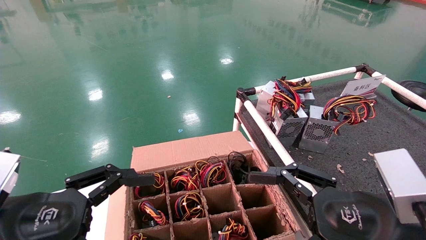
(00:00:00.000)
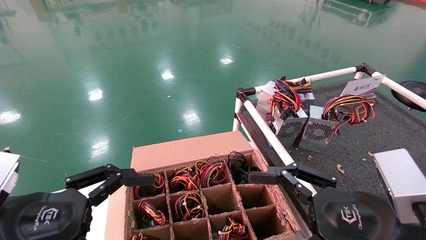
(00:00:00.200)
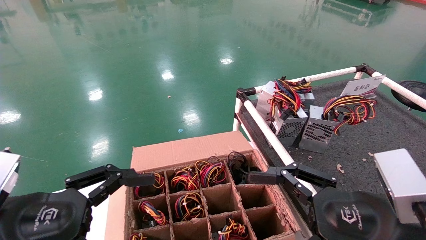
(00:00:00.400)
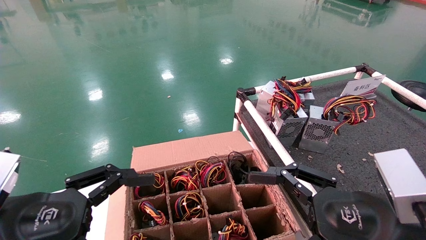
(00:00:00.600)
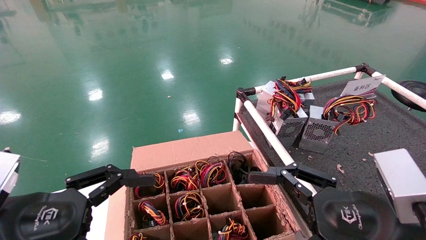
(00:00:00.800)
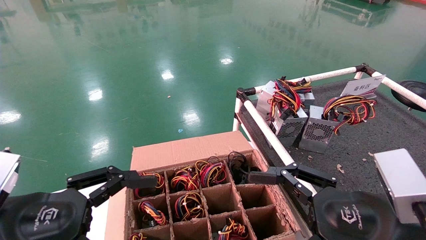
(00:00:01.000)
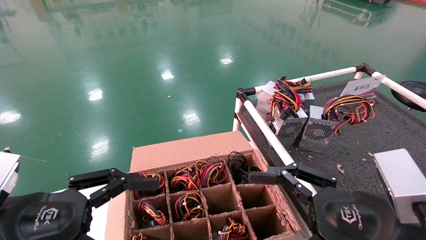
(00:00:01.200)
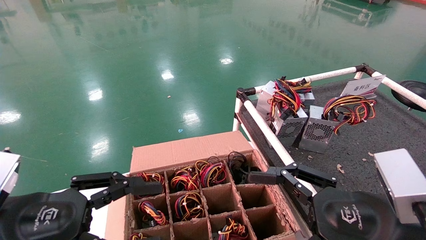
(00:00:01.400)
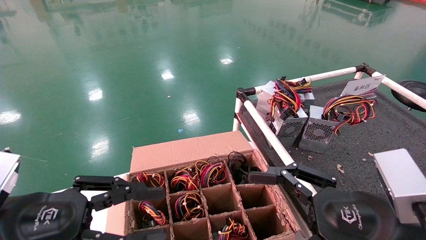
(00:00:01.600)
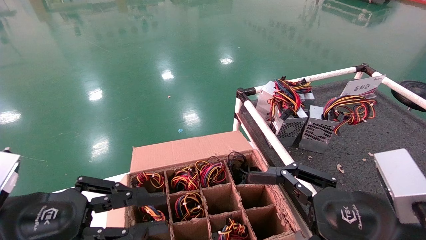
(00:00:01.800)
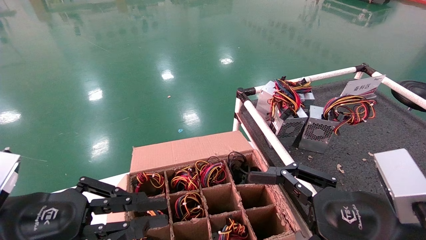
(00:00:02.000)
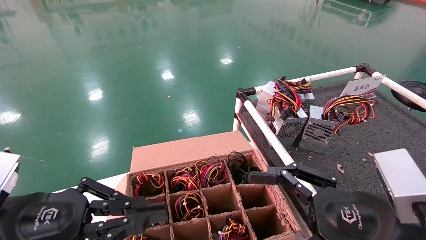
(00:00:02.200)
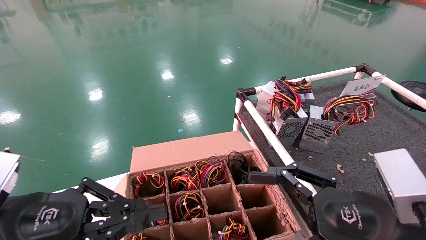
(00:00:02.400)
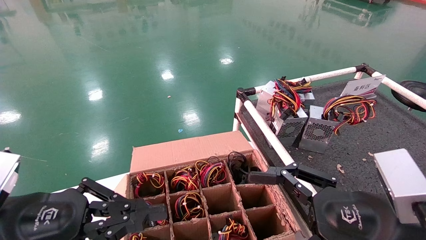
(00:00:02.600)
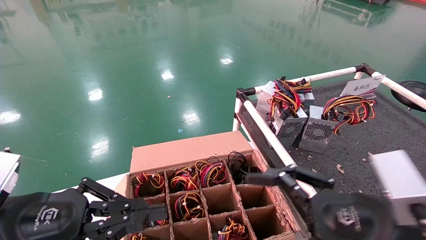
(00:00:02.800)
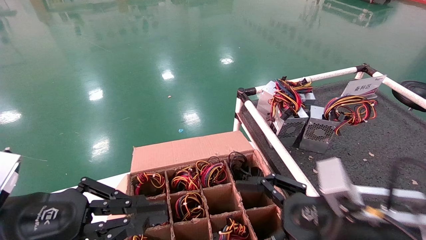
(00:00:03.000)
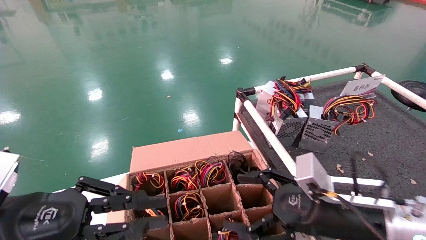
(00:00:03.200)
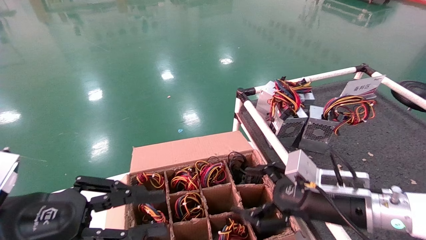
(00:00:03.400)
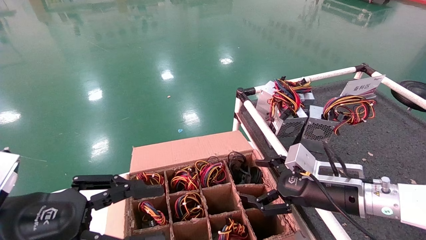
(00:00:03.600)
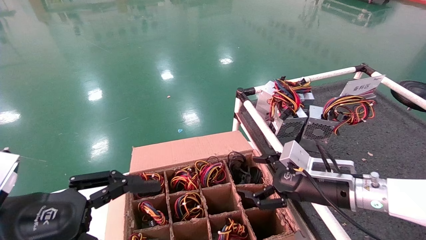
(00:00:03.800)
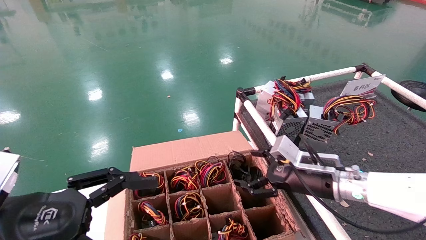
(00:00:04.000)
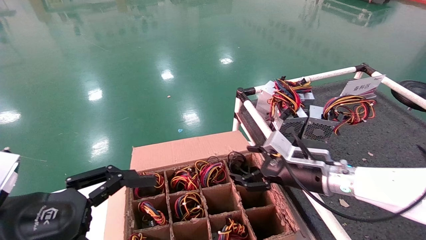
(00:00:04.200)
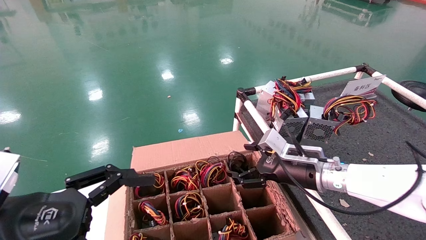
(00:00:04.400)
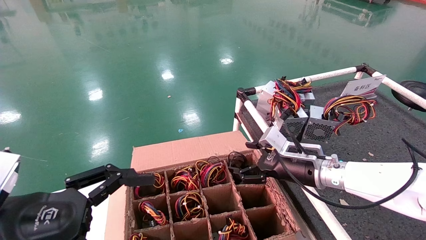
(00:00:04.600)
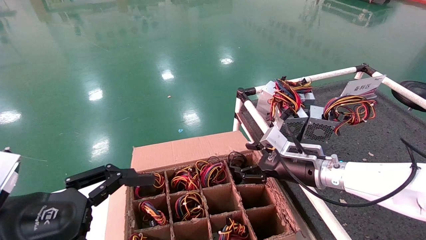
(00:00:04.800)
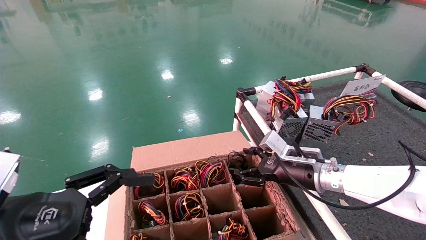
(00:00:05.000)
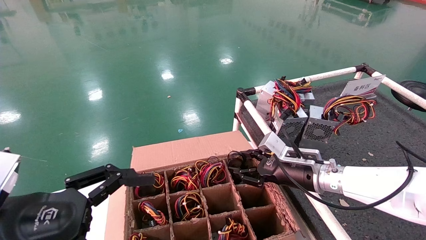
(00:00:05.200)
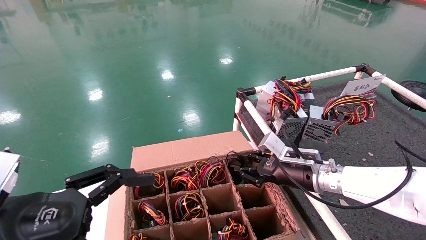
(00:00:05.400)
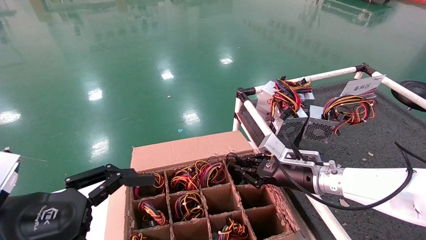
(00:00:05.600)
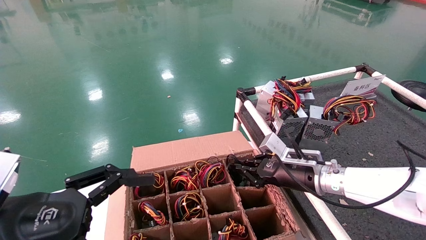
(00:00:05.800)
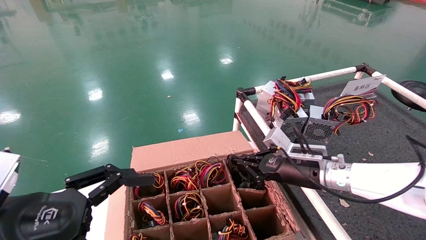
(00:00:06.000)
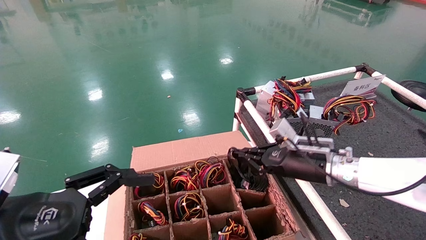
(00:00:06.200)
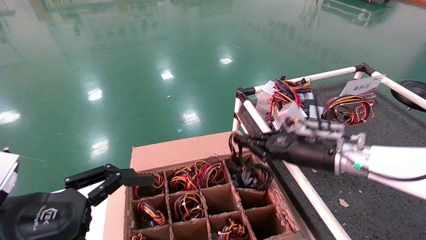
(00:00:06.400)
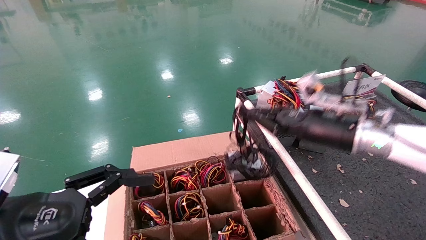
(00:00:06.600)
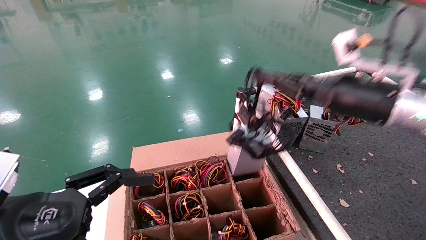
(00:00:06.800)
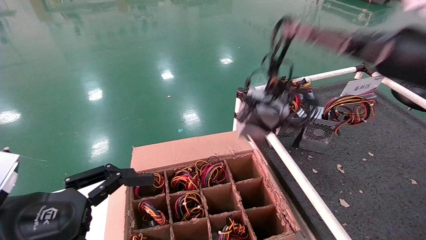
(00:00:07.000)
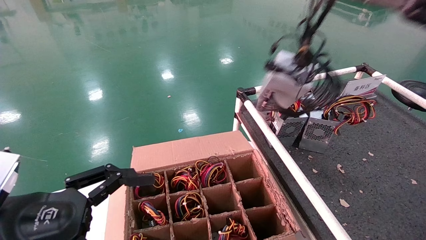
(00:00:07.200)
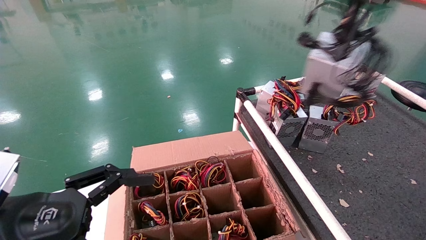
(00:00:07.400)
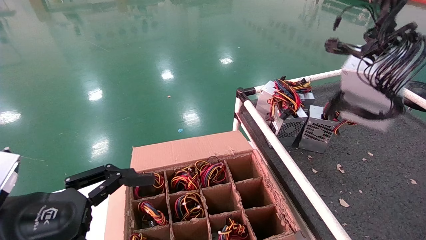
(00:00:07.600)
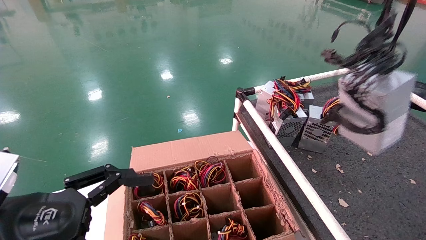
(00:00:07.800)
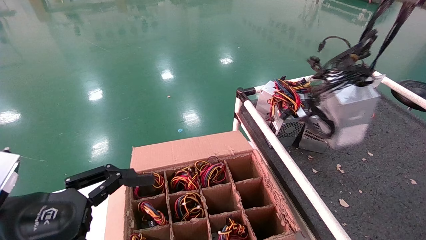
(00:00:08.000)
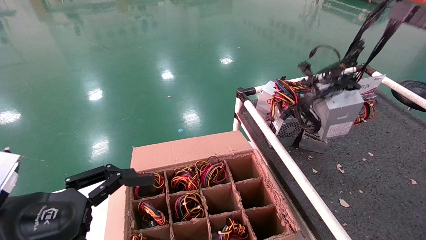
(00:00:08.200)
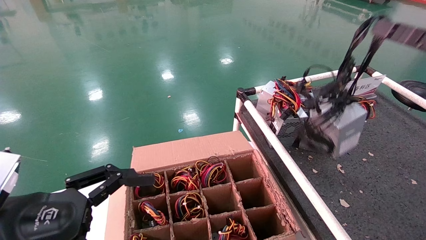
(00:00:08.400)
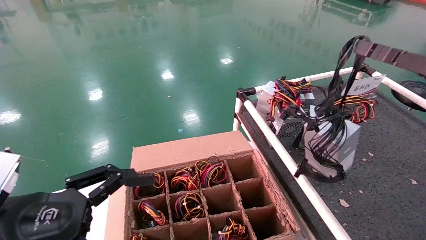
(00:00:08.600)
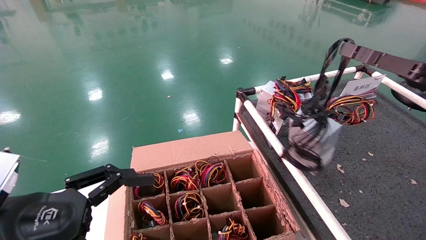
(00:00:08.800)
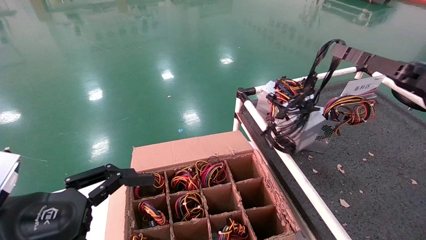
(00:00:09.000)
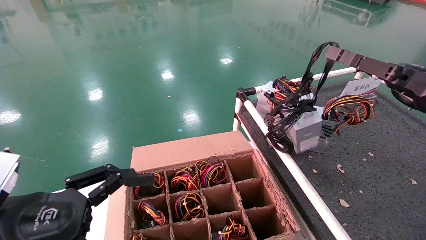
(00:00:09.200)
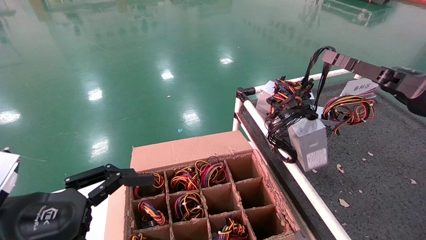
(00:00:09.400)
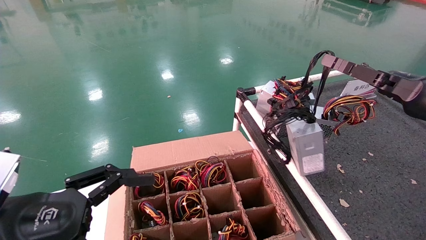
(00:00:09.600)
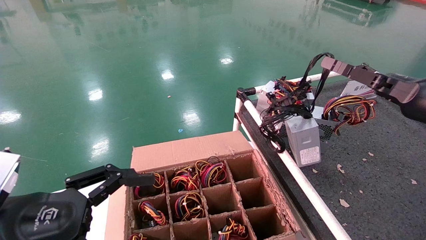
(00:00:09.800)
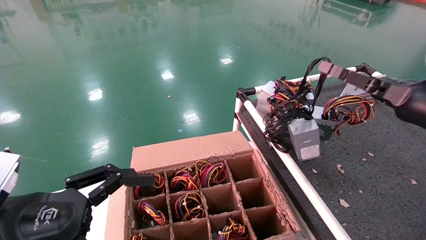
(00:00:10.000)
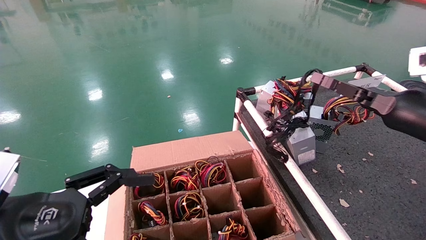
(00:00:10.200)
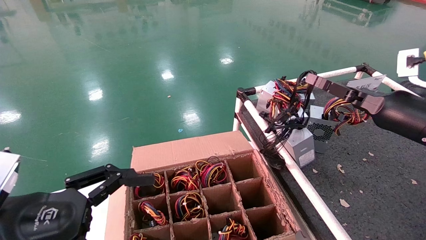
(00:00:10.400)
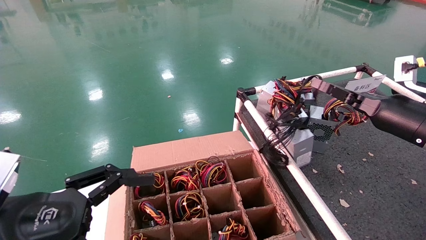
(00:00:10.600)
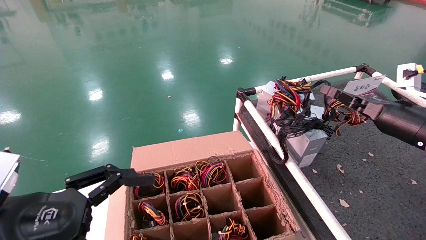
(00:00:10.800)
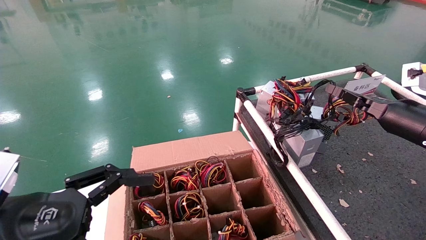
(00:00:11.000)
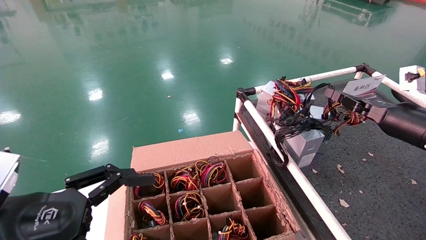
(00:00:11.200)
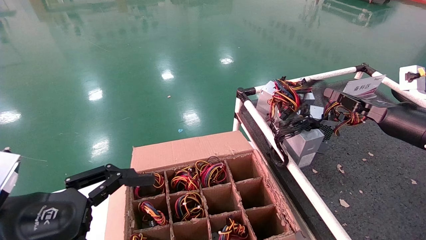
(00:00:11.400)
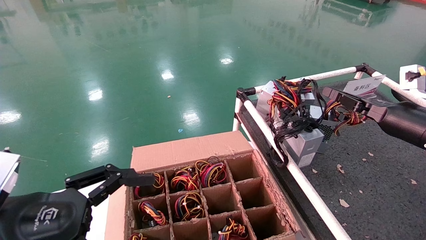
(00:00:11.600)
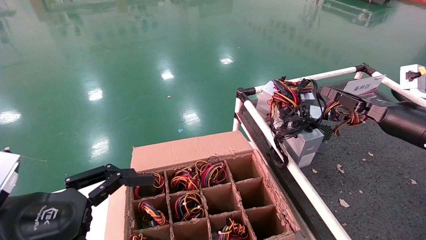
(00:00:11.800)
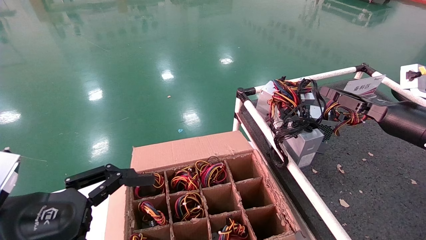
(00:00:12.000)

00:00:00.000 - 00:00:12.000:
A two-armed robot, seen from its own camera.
Step, 00:00:03.200 - 00:00:06.000: Grab and lift the power supply from the large box.
Step, 00:00:06.200 - 00:00:11.800: Place the power supply on the operating table.
00:00:00.000 - 00:00:01.600: The left gripper closes its fingers.
00:00:01.600 - 00:00:03.000: The right gripper shifts some 5 cm forward. Meanwhile the left gripper closes up.
00:00:03.000 - 00:00:04.400: The right gripper heads forward, covering approximately 20 cm, while the left gripper opens its fingers.
00:00:04.400 - 00:00:06.000: The right gripper closes its fingers.
00:00:06.000 - 00:00:07.600: The right gripper moves upward, backward and to the right, approximately 40 cm.
00:00:07.600 - 00:00:09.000: The right gripper goes approximately 10 cm downward and forward.
00:00:09.000 - 00:00:10.400: The right gripper travels forward by some 5 cm.
00:00:10.400 - 00:00:12.000: There are only small adjustments of the grippers.

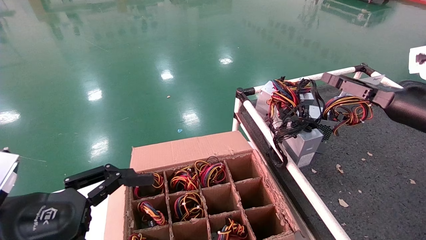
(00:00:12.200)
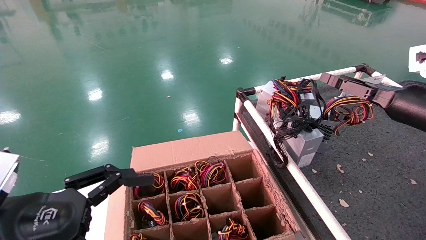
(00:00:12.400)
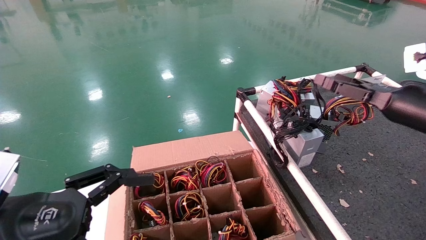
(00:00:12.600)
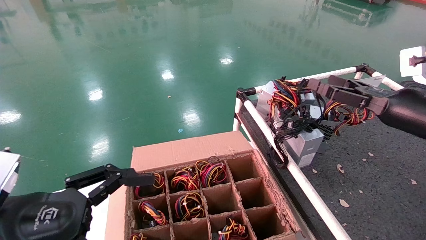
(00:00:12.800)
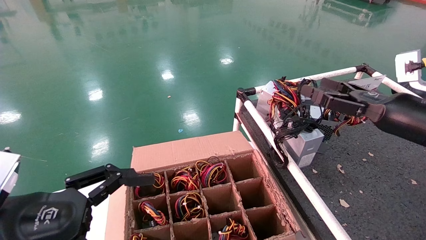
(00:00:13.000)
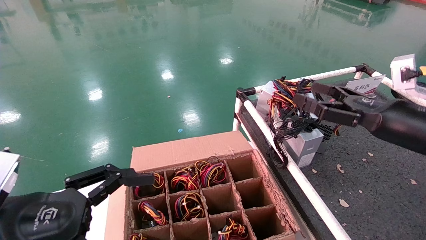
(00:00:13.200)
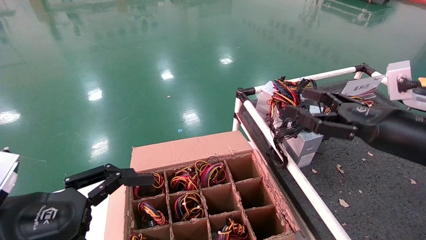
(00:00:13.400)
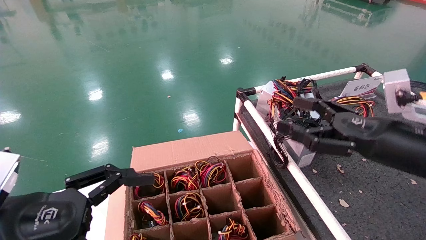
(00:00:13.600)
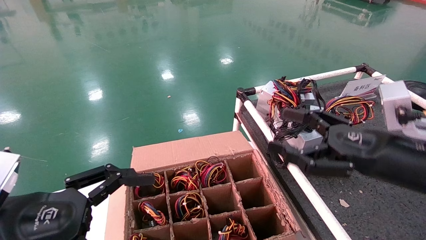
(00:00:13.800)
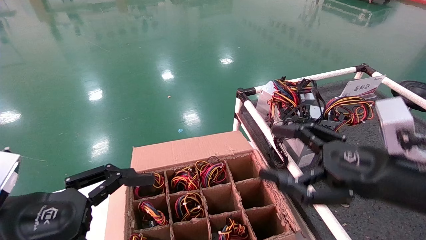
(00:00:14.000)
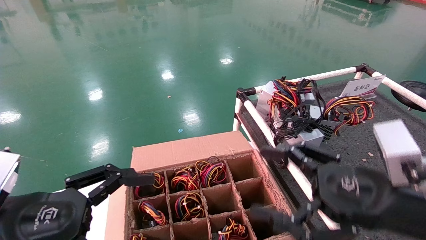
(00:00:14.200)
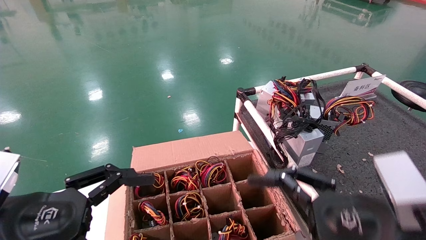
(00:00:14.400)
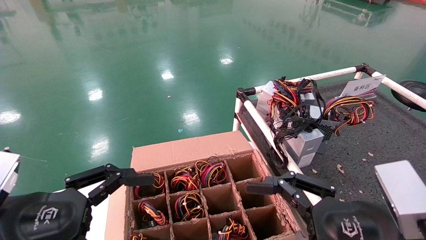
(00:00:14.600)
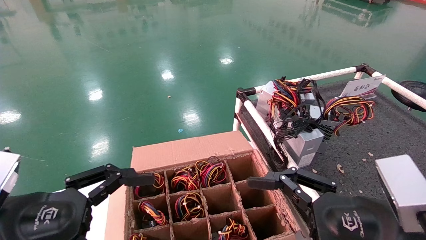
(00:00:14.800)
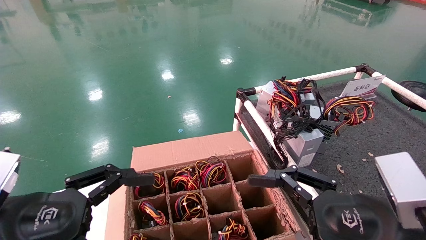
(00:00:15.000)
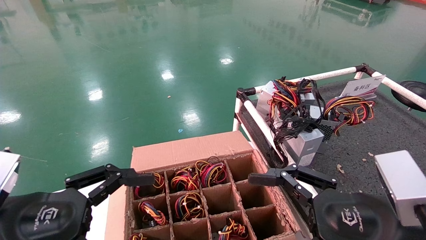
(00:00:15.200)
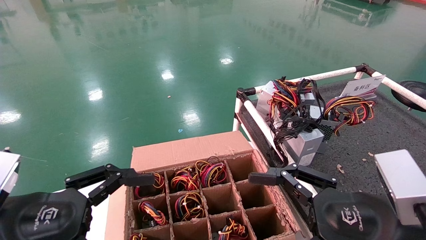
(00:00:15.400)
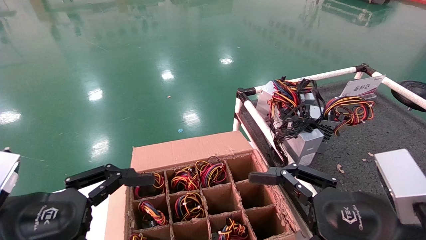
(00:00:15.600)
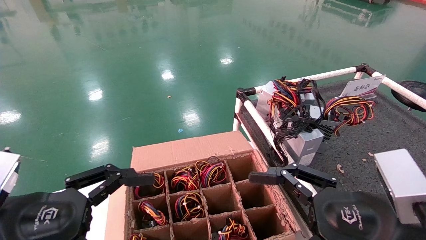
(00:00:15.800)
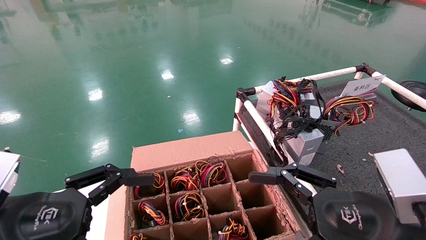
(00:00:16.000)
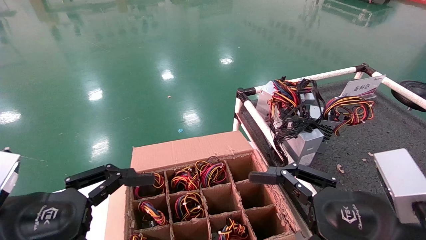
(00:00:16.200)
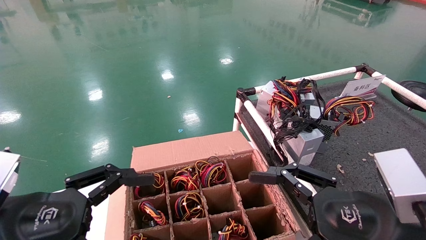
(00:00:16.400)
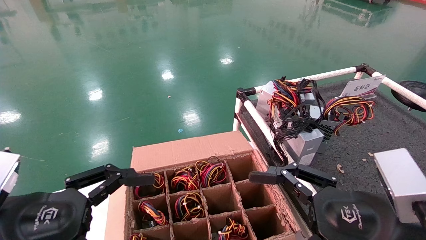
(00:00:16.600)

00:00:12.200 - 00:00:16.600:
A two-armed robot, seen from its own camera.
00:00:12.200 - 00:00:13.600: The right gripper shifts roughly 15 cm to the left and backward, and opens up.
00:00:13.600 - 00:00:15.200: The right gripper is displaced backward, to the left and downward by roughly 10 cm.
00:00:15.200 - 00:00:16.600: Both grippers stay about where they are.
